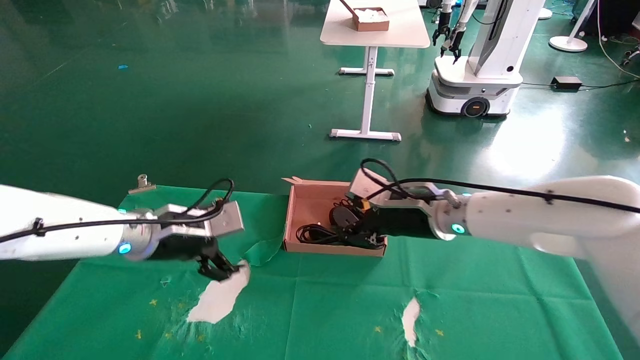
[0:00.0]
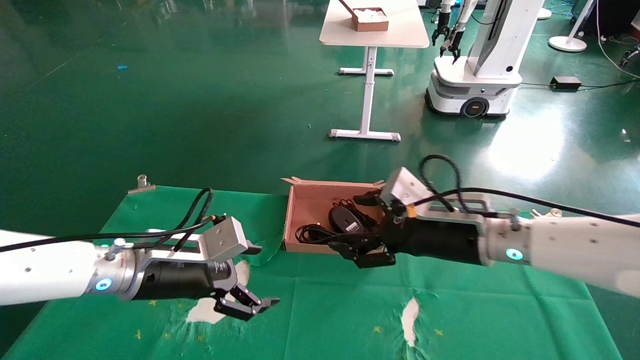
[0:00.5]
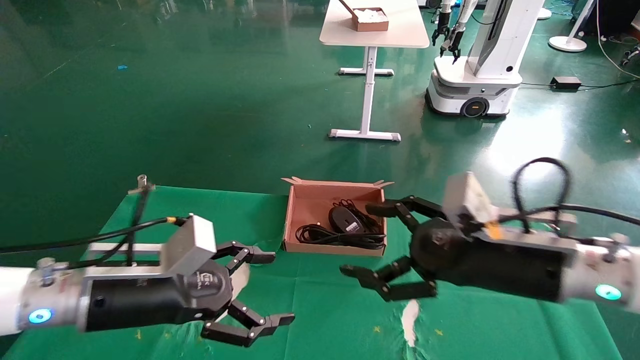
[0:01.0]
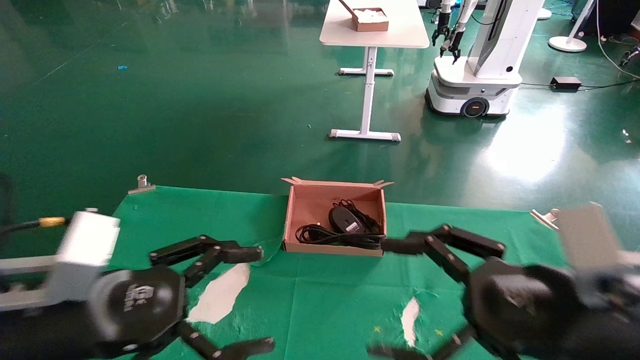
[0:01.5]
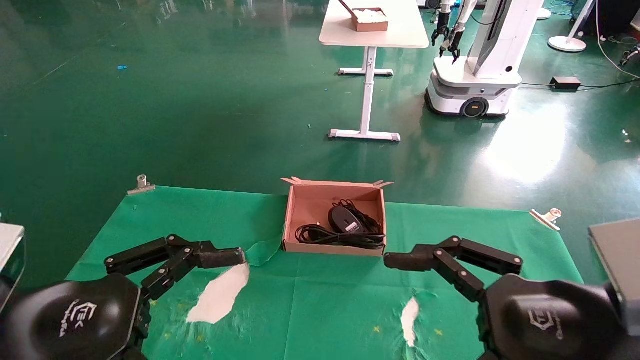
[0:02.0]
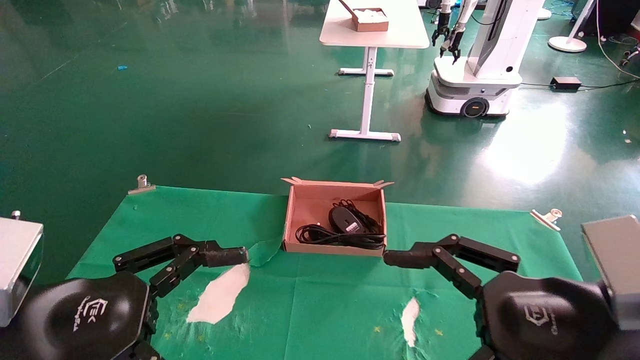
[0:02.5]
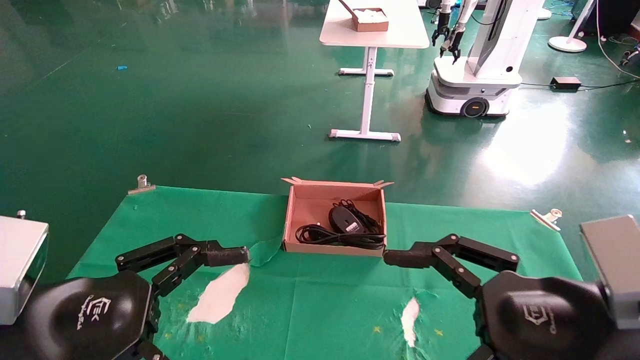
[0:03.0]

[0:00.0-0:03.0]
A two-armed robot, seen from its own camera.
0:00.0 to 0:01.5: The left gripper is displaced backward by some 20 cm. The right gripper moves backward and to the right, roughly 25 cm, and opens.
0:01.5 to 0:03.0: The grippers make only small movements.

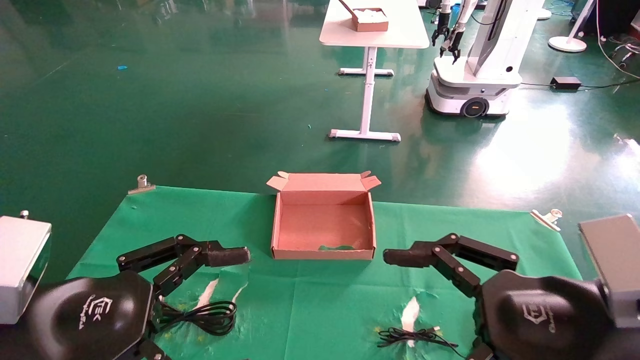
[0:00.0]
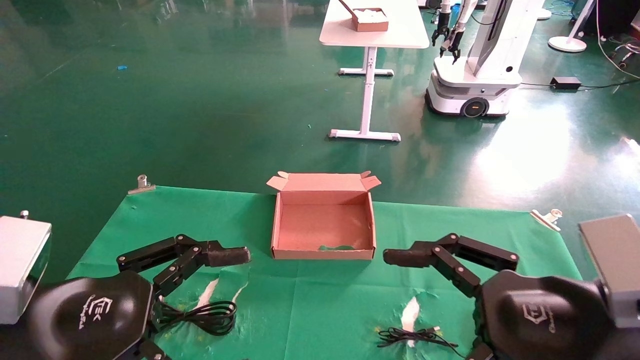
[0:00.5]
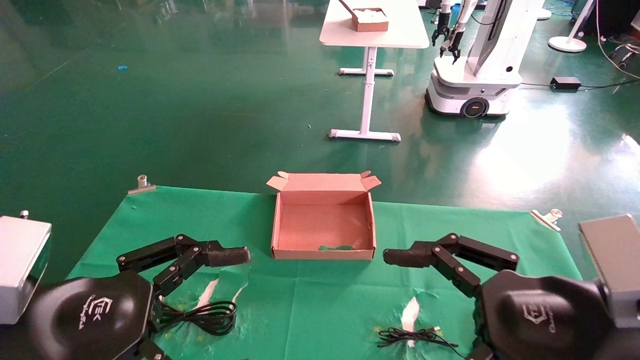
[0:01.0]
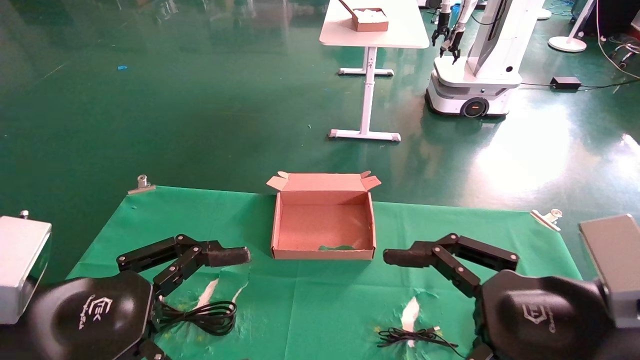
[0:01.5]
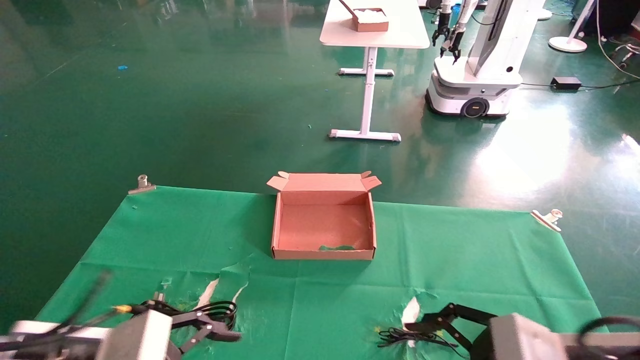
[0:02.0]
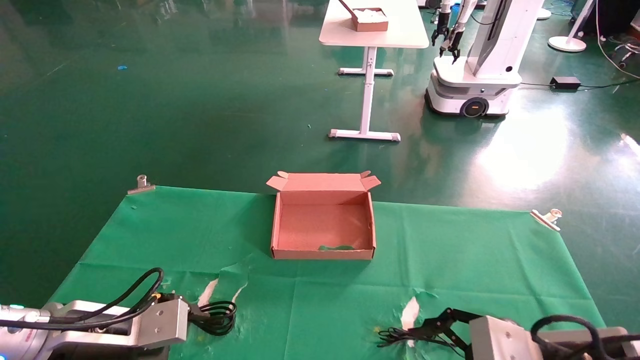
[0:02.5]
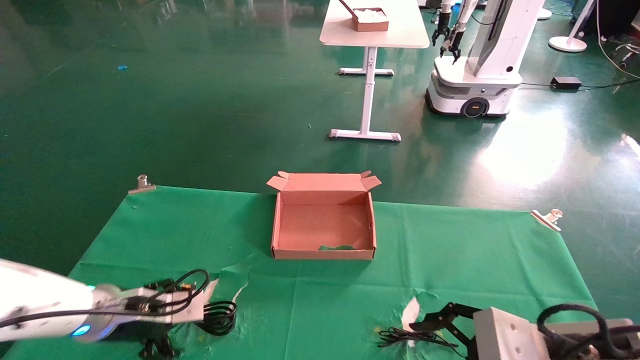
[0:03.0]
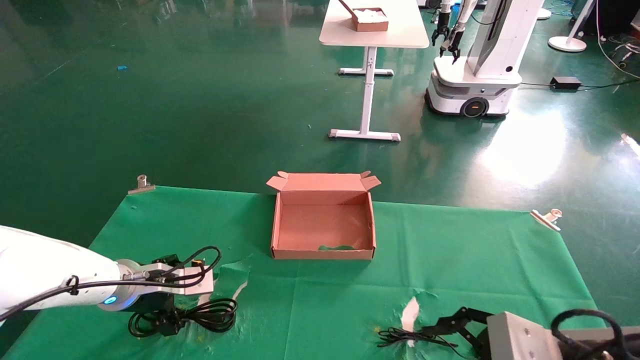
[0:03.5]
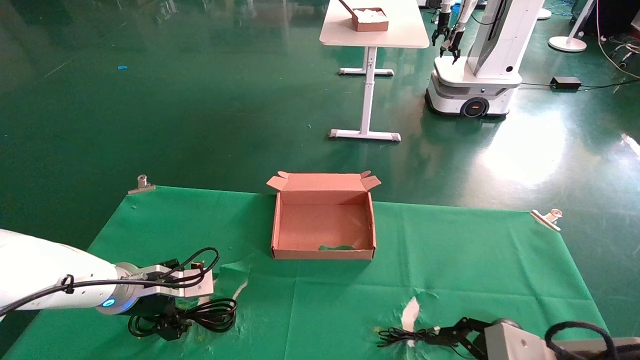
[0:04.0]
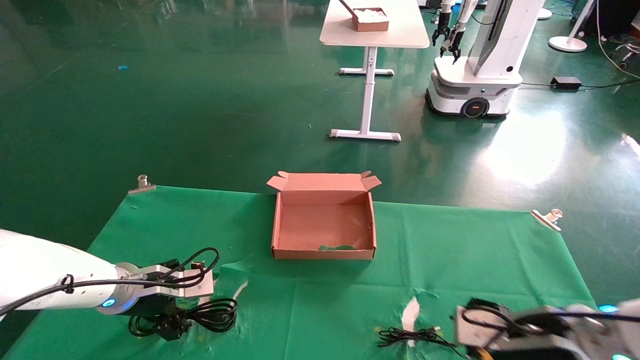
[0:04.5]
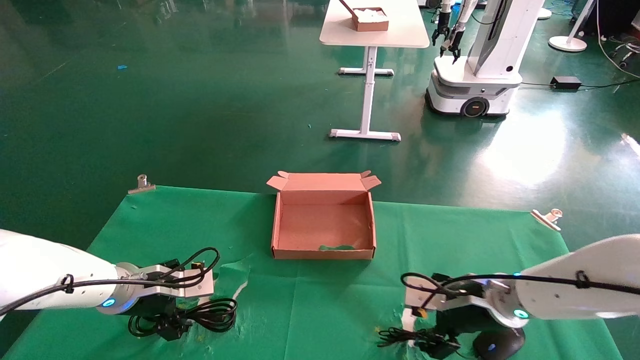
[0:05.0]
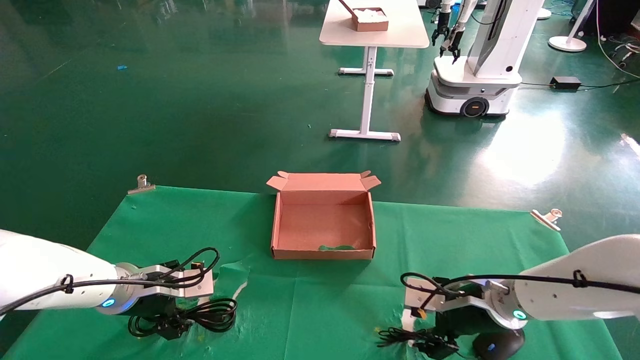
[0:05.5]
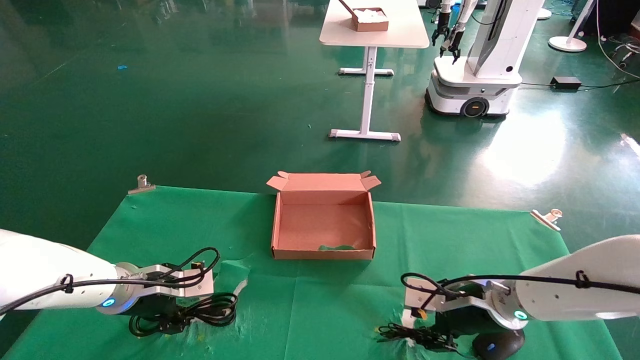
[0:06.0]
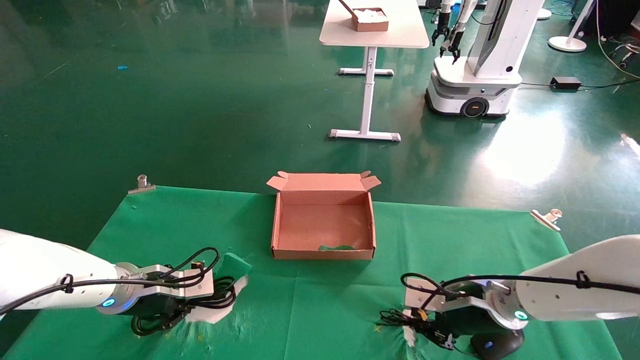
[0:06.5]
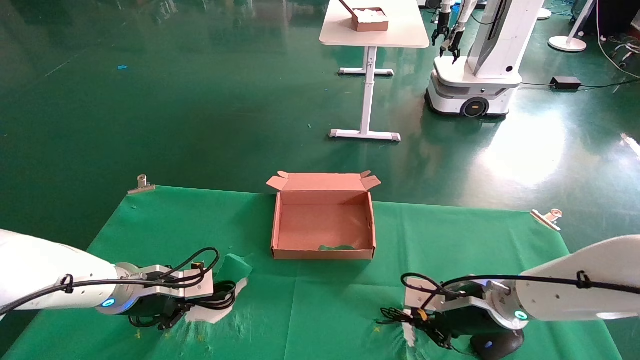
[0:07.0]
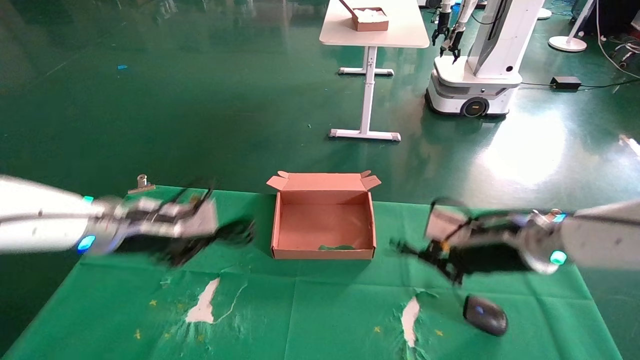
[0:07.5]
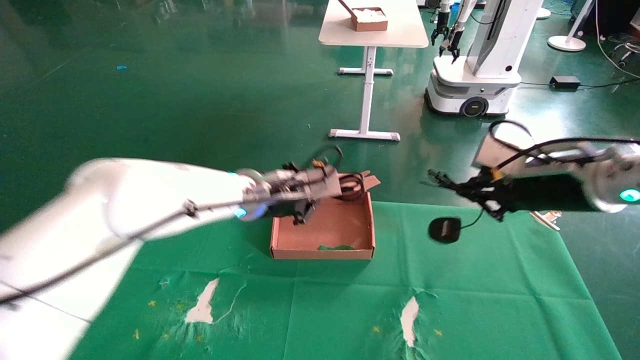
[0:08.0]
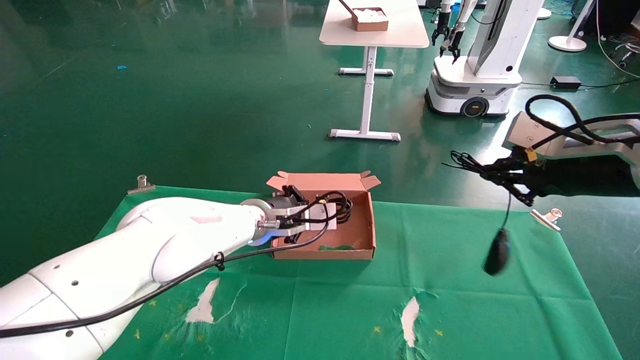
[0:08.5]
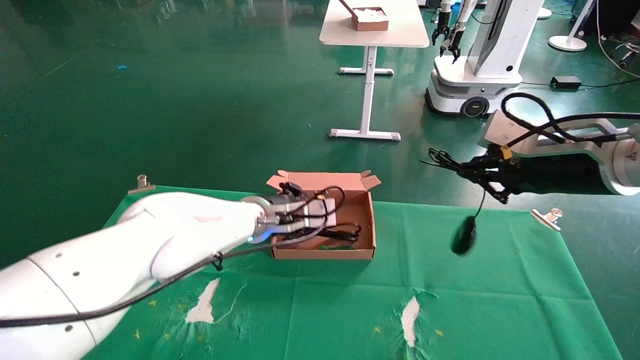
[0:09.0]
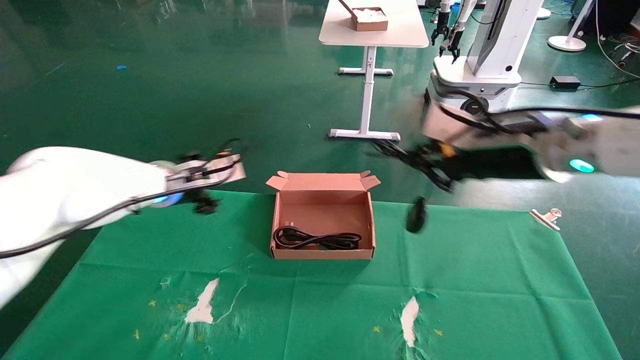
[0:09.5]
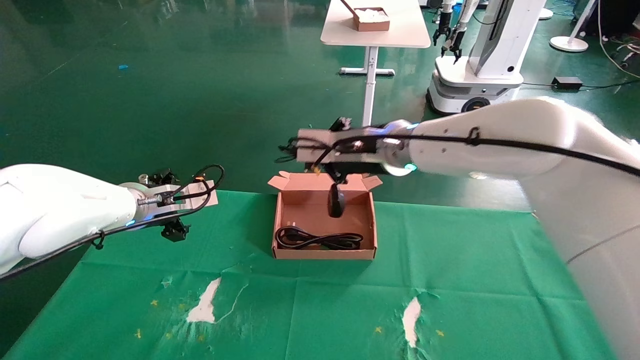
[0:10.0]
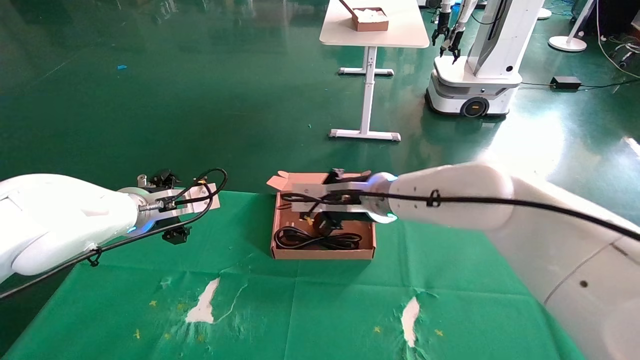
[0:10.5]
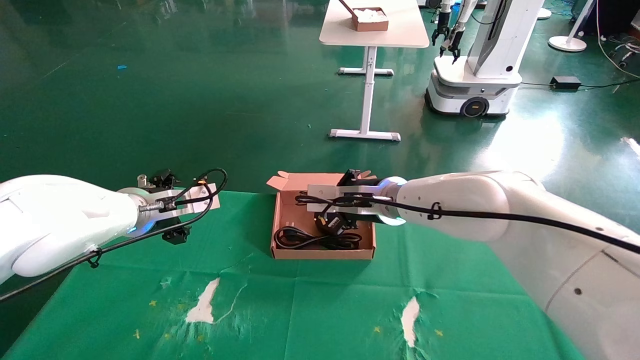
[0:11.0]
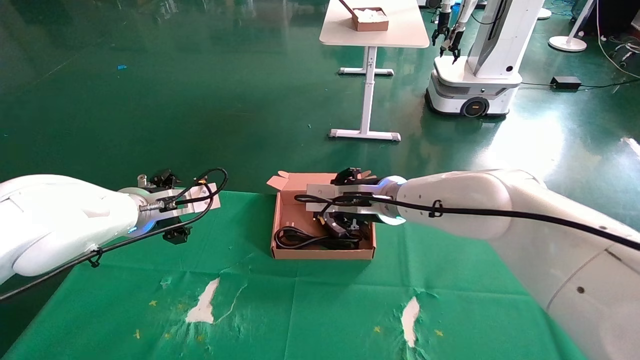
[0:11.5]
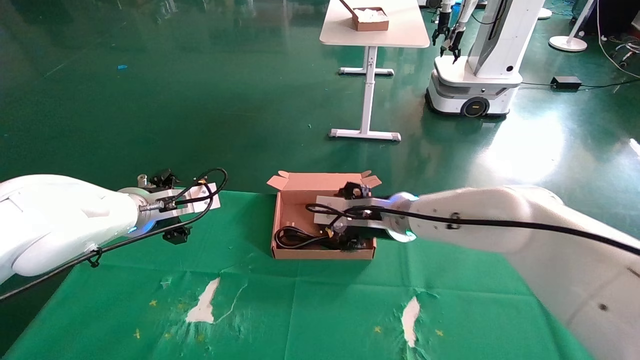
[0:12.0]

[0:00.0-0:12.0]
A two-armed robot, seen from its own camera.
Step, 0:02.0 to 0:07.0: Grab and lift both the mouse and power cord from the accessory packaging area at the same time.
Step, 0:07.5 to 0:11.5: Place the mouse and power cord into the box.
0:00.0 to 0:02.0: The left gripper moves downward and forward, approximately 10 cm. Meanwhile the right gripper goes roughly 5 cm downward.
0:02.0 to 0:04.0: The left gripper moves forward, some 15 cm.
0:04.0 to 0:06.0: The right gripper shifts about 15 cm forward.
0:06.0 to 0:08.0: The left gripper heads to the right and upward, covering approximately 20 cm, and closes; the right gripper heads upward and to the right, covering about 20 cm, and closes.
0:08.0 to 0:10.0: The grippers both shift to the left by some 20 cm. The left gripper opens its fingers.
0:10.0 to 0:12.0: The right gripper moves downward, roughly 10 cm, and opens up.

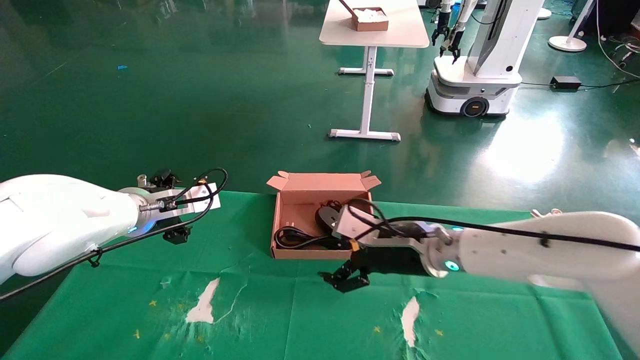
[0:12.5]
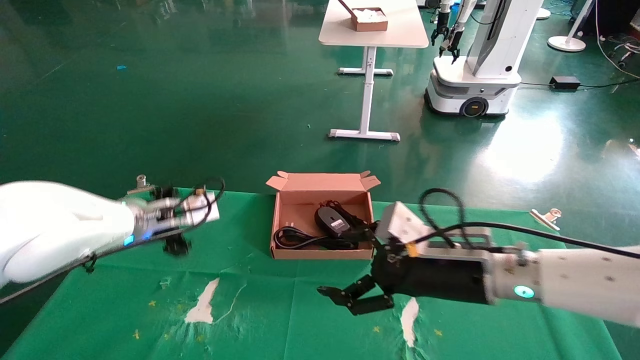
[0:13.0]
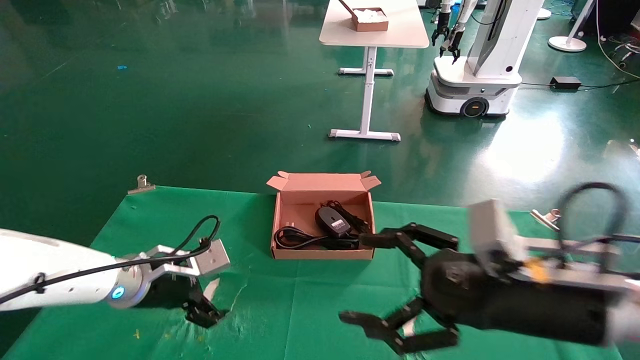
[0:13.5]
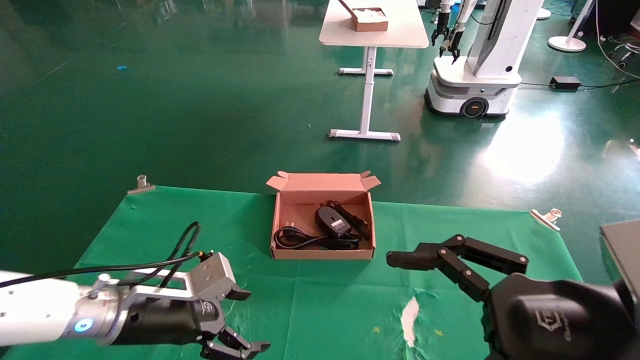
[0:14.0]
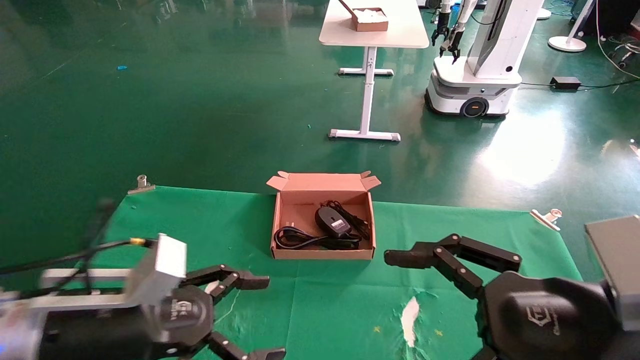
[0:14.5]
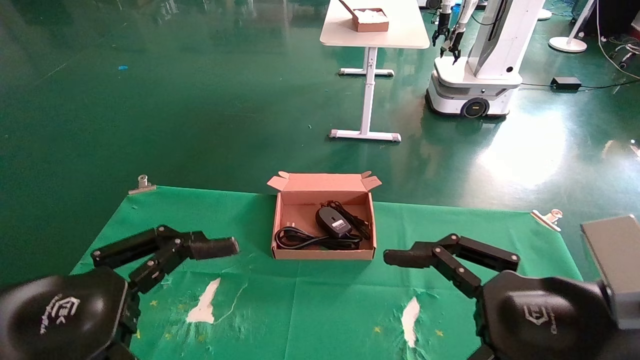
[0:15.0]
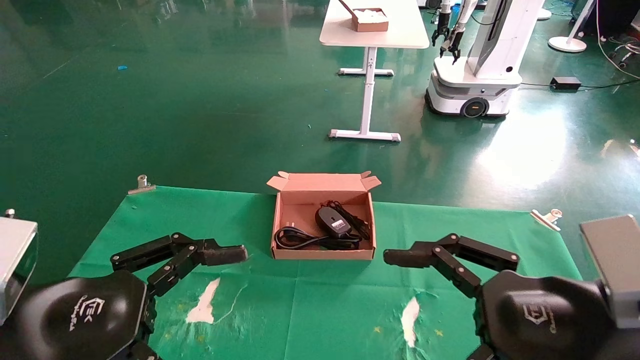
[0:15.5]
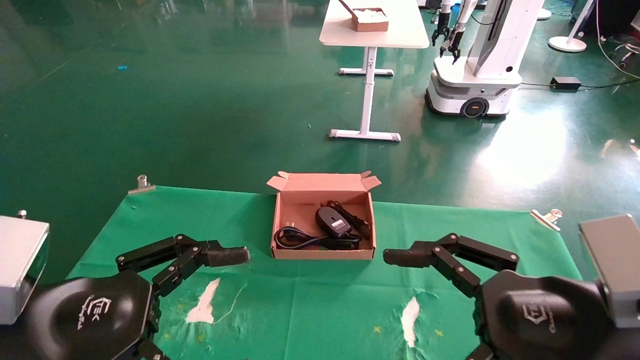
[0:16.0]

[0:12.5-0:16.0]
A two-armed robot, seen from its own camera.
0:12.5 to 0:14.5: The right gripper travels backward and to the right by about 25 cm; the left gripper moves backward, roughly 20 cm.
0:14.5 to 0:16.0: The left gripper shifts approximately 5 cm backward.
